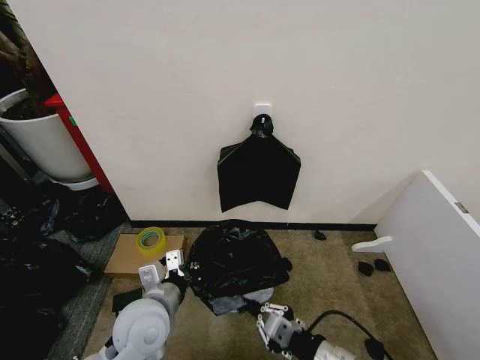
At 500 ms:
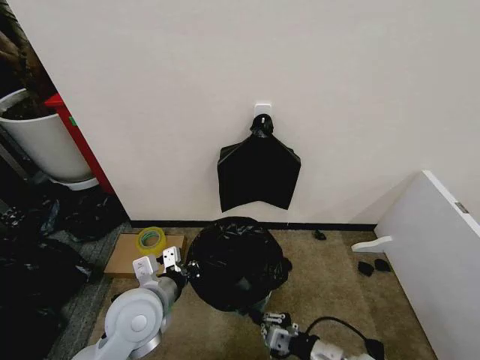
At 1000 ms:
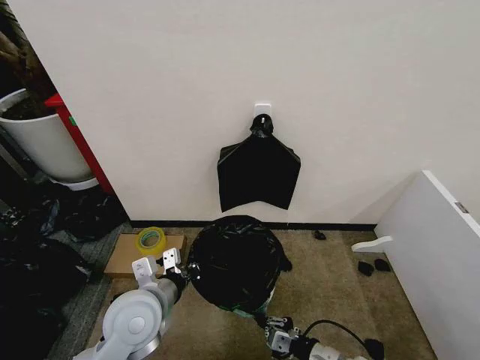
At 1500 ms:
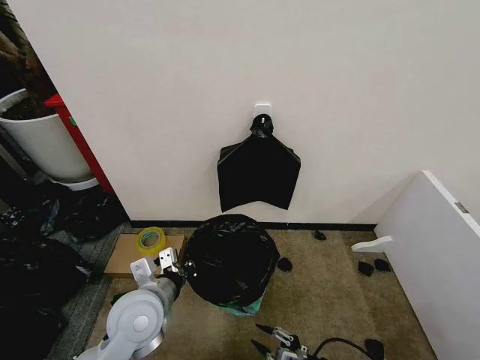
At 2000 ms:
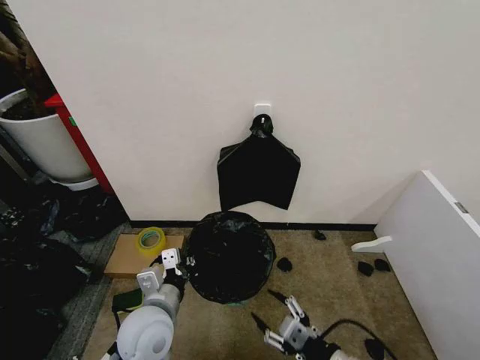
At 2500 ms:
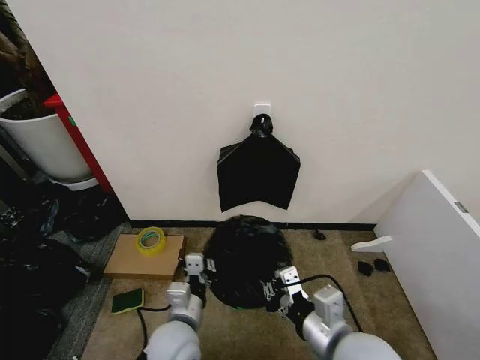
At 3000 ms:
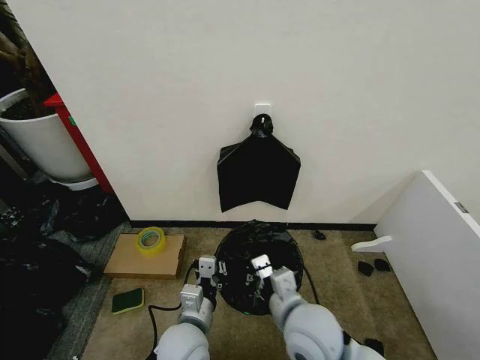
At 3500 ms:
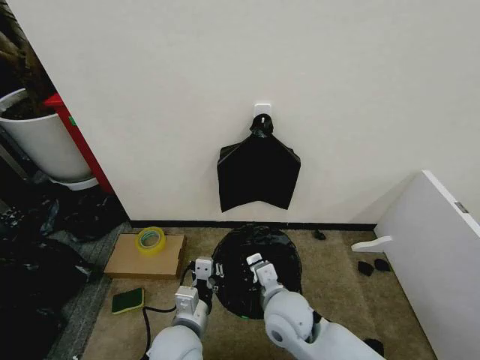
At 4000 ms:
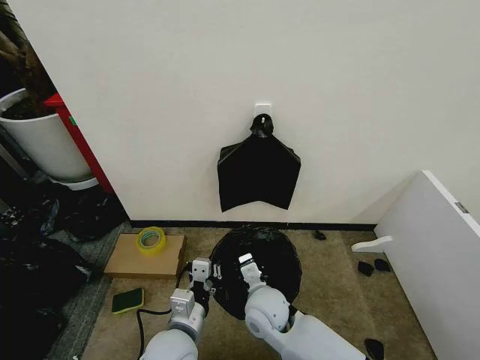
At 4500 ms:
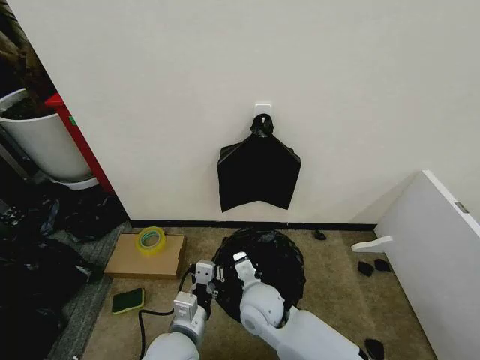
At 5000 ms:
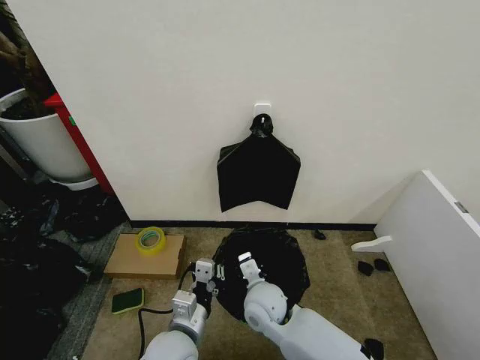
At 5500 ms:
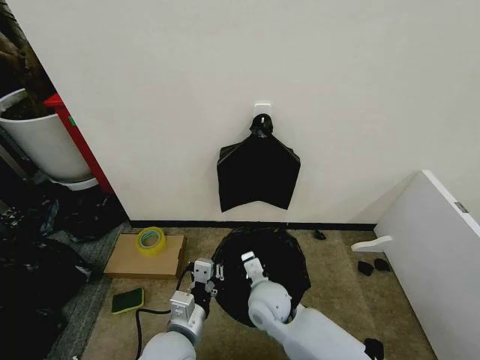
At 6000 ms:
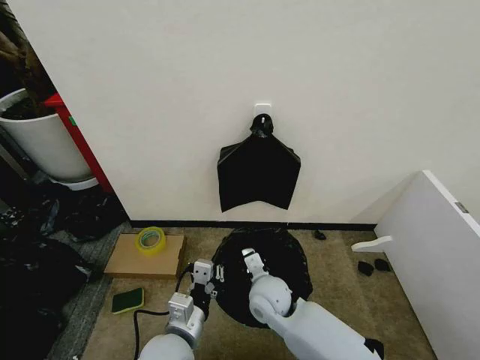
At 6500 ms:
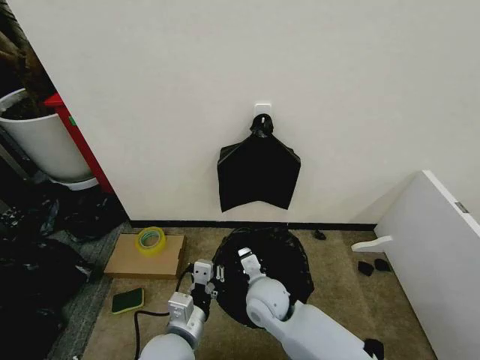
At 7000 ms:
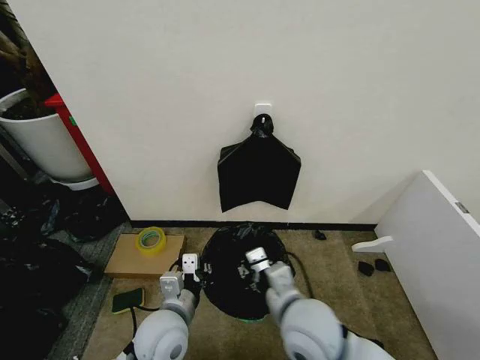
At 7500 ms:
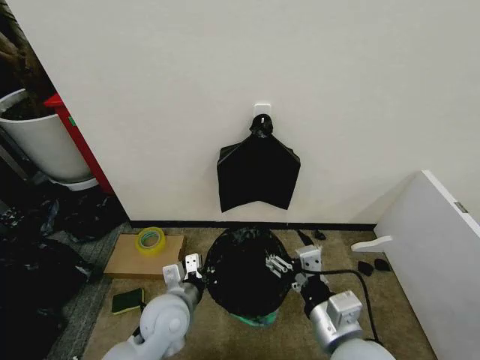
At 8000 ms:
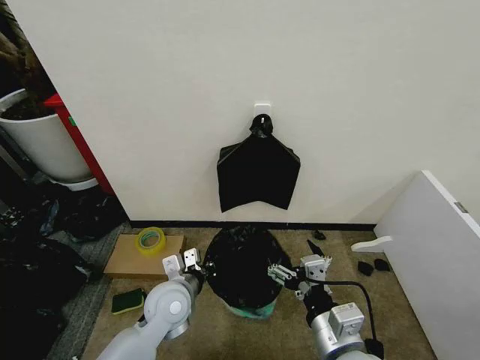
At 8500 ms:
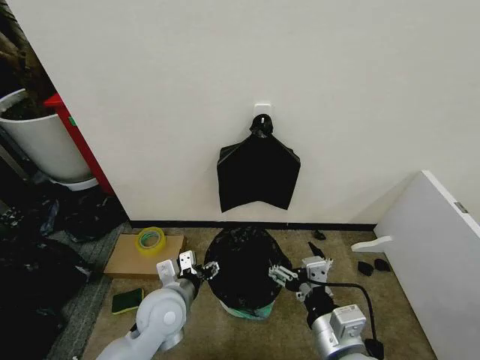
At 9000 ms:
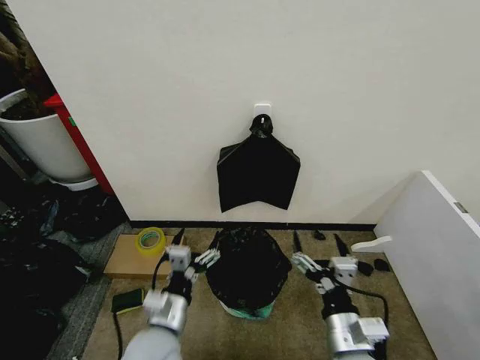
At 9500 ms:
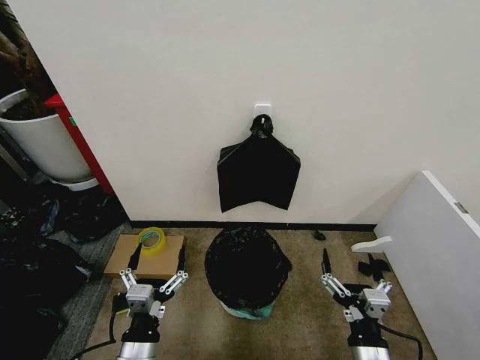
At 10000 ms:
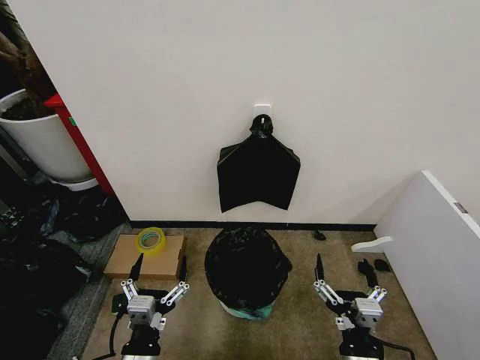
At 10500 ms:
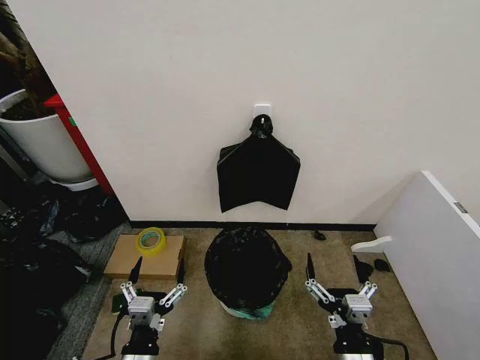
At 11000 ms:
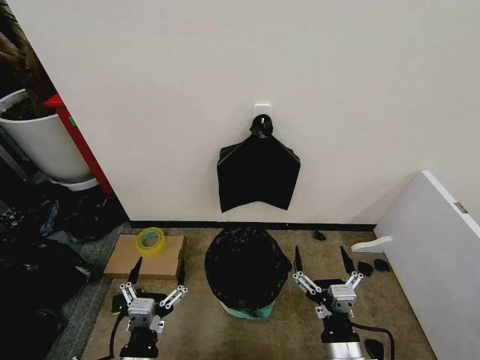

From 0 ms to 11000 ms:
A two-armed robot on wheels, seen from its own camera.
Task of the whole recording: Place the garbage bag over the trash bin.
From 0 ms to 2000 ms: The right gripper travels downward and back again, roughly 15 cm each way, and opens its fingers.
From 2000 ms to 3500 ms: The left gripper shifts some 5 cm to the right. The right gripper travels forward and to the left by some 20 cm, and closes.
From 3500 ms to 5500 ms: The right gripper changes place by roughly 5 cm.
From 5500 ms to 7500 ms: The right gripper is displaced backward, upward and to the right by approximately 20 cm, and opens up, while the left gripper moves forward, approximately 5 cm.
From 7500 ms to 9000 ms: The right gripper is displaced downward by some 5 cm. The left gripper travels backward by roughly 5 cm, and opens.
From 9000 ms to 11000 ms: The left gripper shifts about 10 cm backward.

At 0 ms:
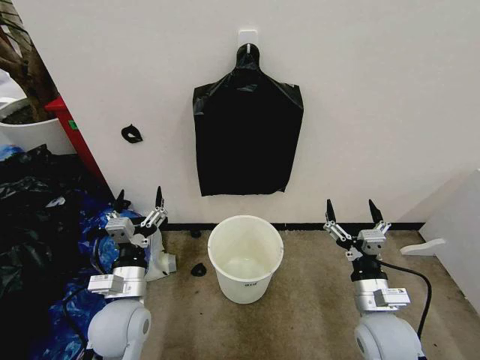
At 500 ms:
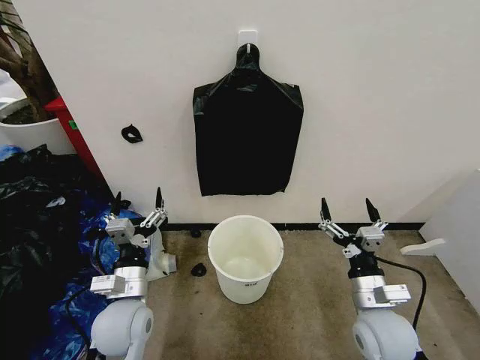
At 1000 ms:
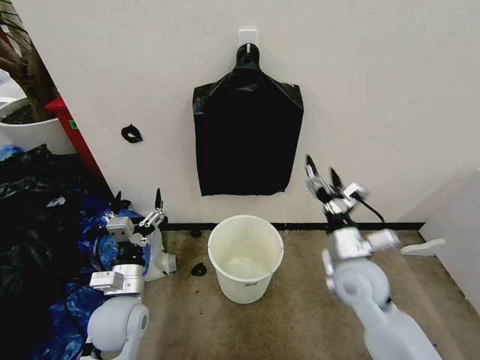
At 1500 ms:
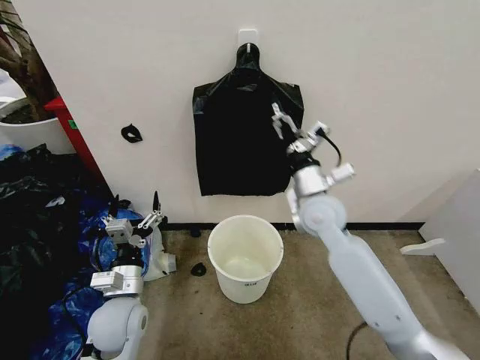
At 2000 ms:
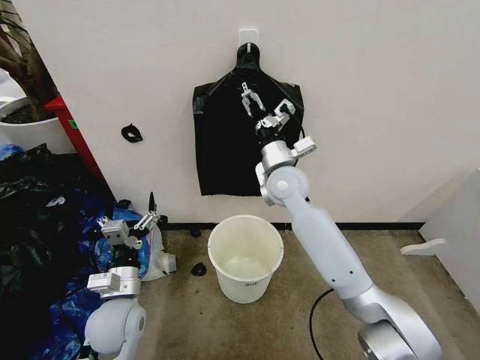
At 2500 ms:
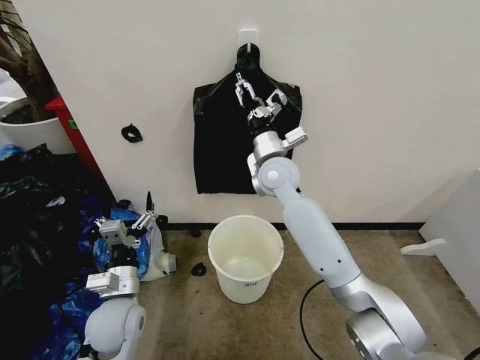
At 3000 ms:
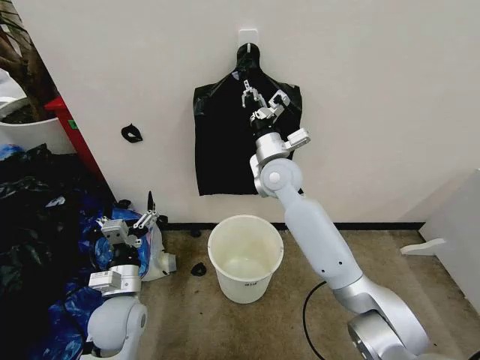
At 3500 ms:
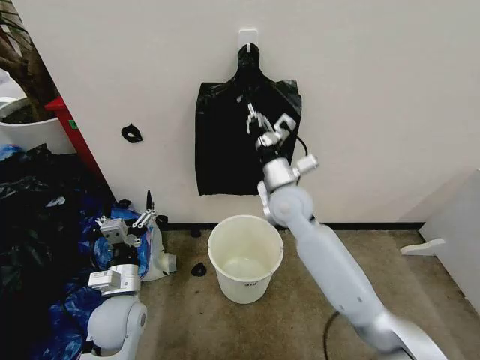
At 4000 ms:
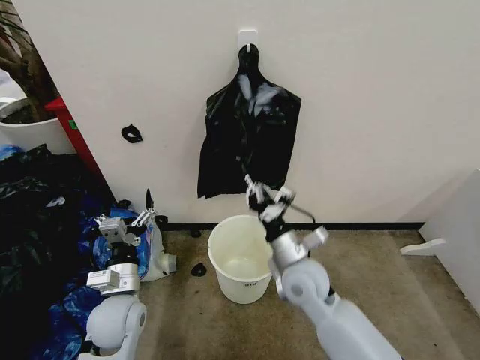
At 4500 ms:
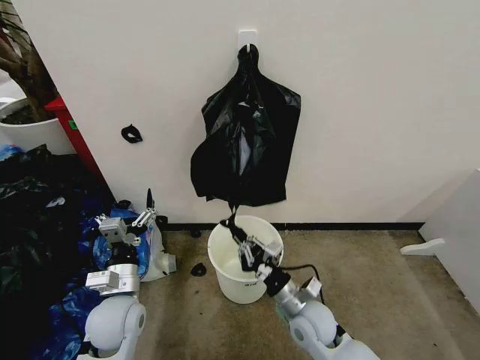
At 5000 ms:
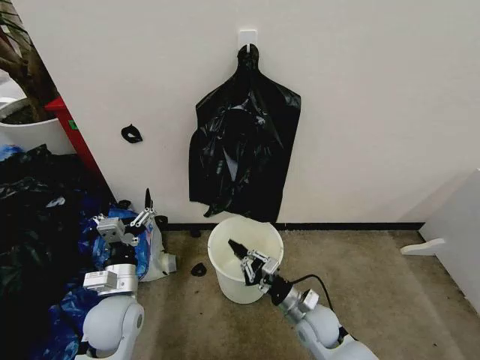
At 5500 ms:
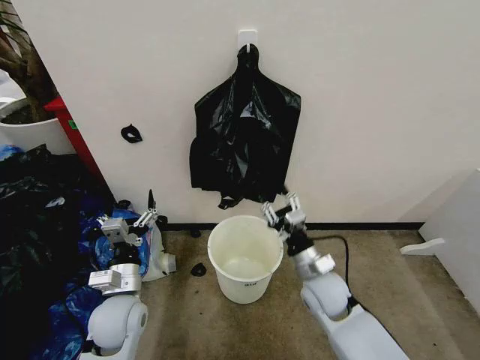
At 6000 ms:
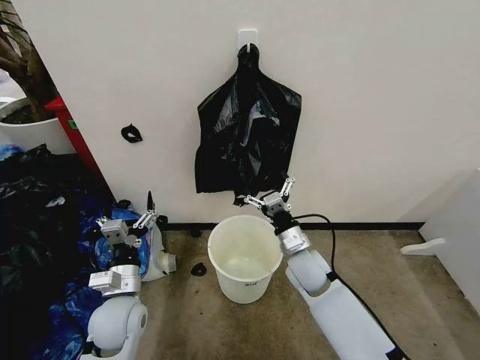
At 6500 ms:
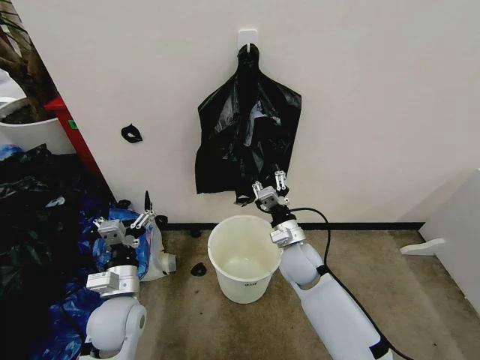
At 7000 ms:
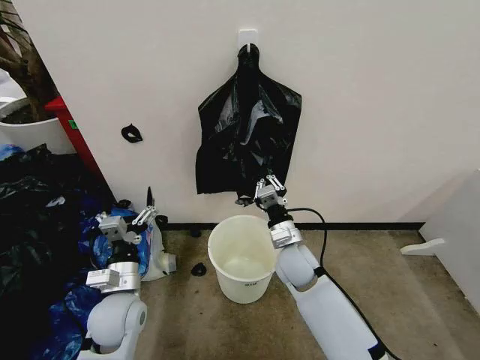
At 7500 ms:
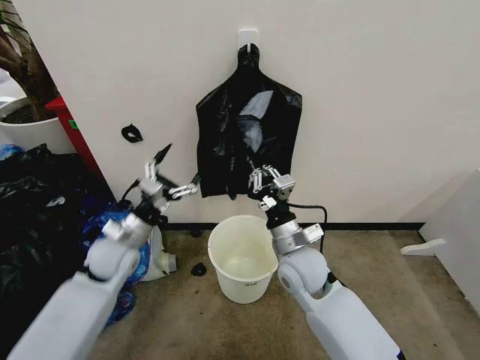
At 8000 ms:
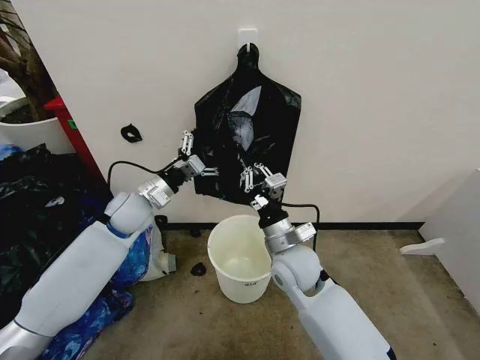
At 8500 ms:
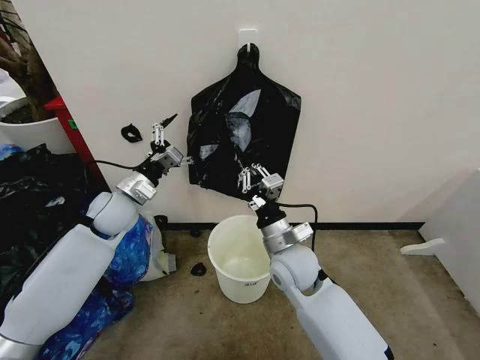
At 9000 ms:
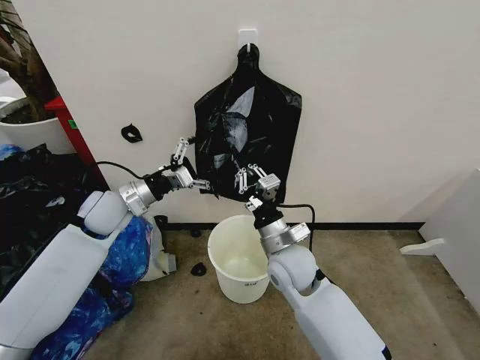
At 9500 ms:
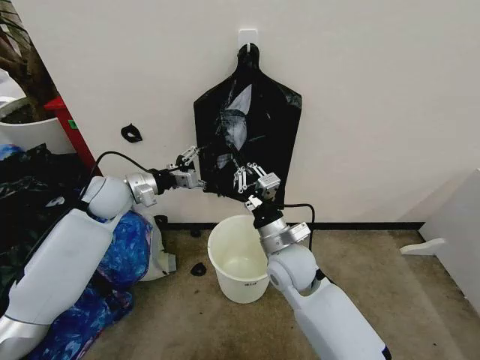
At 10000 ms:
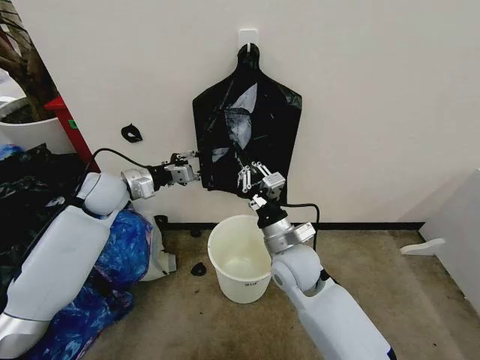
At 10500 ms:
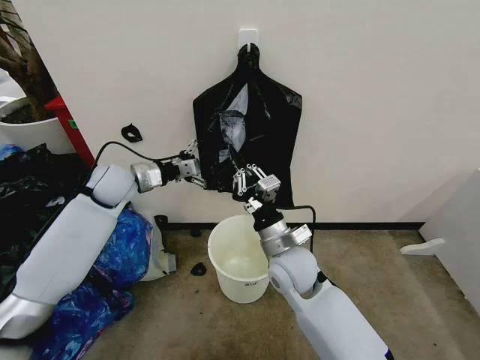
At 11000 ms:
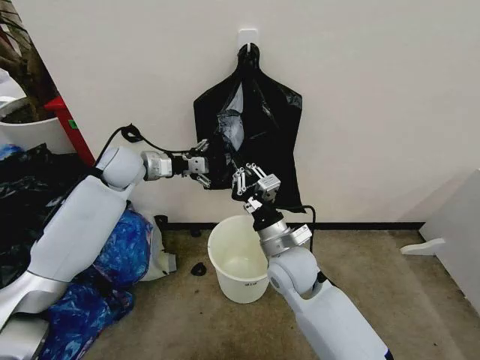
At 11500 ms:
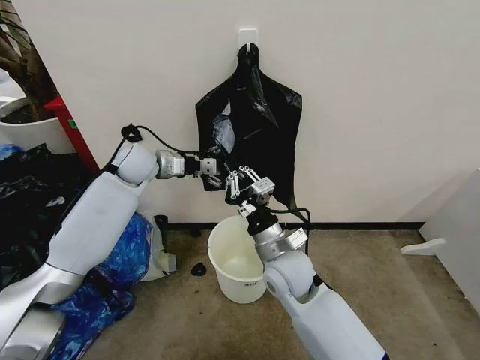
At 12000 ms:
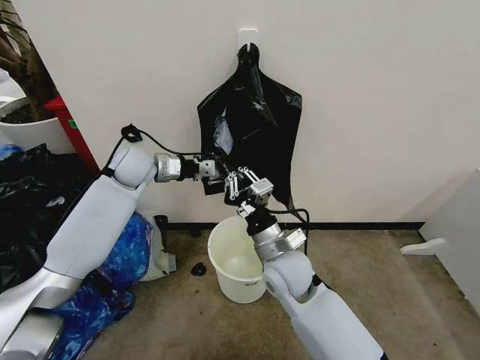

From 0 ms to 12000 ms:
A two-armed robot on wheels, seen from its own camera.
Task of the whole recording: Place the garbage bag over the trash bin.
From 2000 ms to 4000 ms: The right gripper is displaced backward and downward by roughly 20 cm, and closes.
From 4000 ms to 6000 ms: The right gripper heads downward, covering roughly 5 cm, and opens.
From 6000 ms to 8000 ms: The right gripper goes some 5 cm upward, and closes up. Meanwhile the left gripper shifts approximately 20 cm forward and upward.
From 8000 ms to 10000 ms: The left gripper travels to the left by approximately 5 cm, and closes.
From 10000 ms to 12000 ms: The left gripper goes about 10 cm forward and to the right, and opens, then closes again.

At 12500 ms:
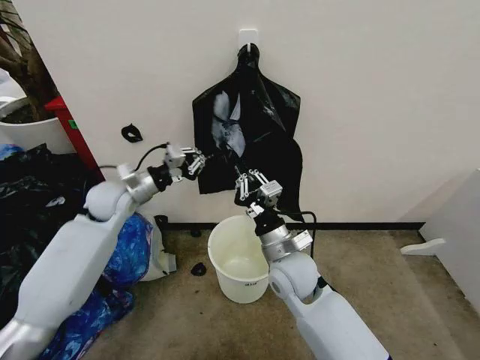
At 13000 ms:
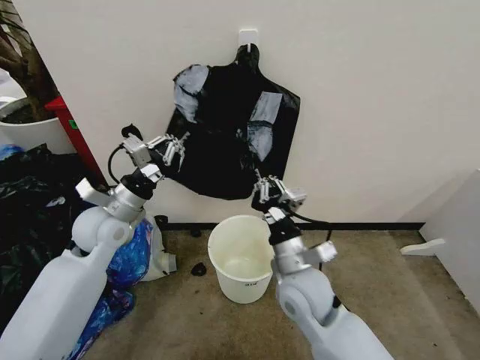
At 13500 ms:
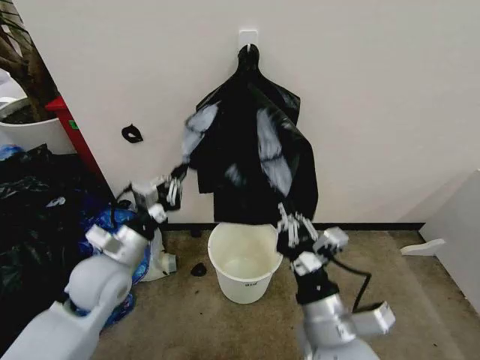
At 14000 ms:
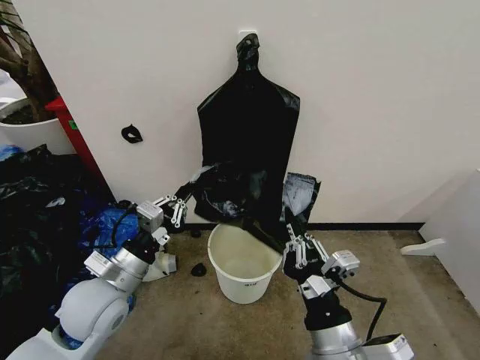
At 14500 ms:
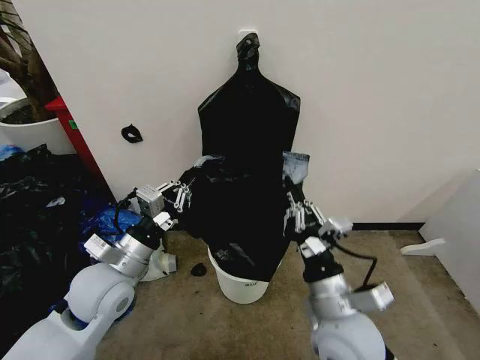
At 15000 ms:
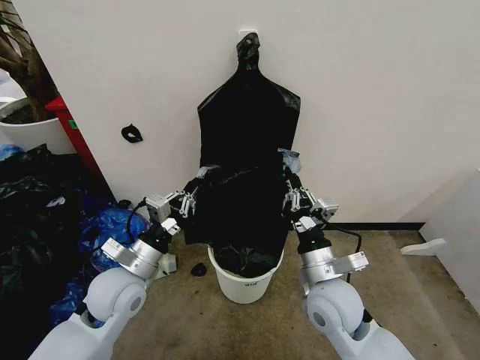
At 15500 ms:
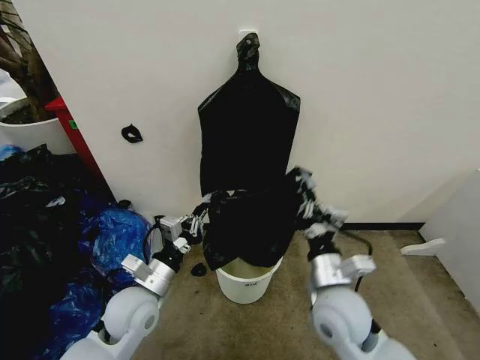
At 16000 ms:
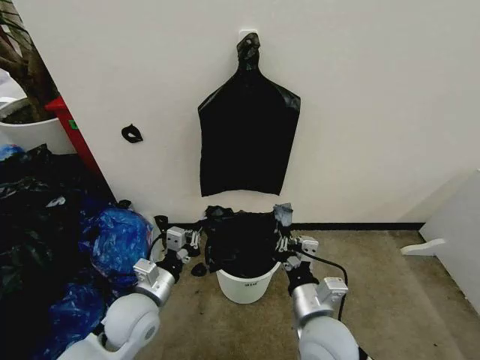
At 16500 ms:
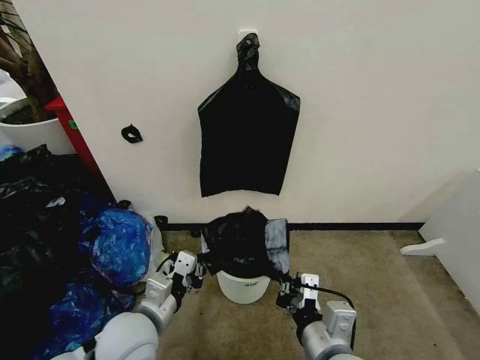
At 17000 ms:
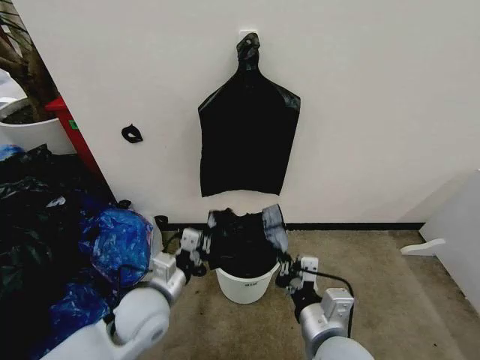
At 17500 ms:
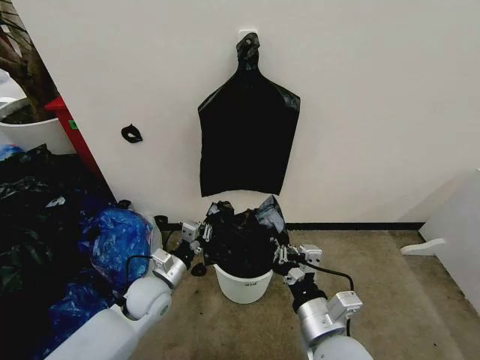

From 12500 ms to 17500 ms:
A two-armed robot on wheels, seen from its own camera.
Task of the whole recording: Place the garbage bag over the trash bin.
From 12500 ms to 15000 ms: The right gripper heads to the right, covering approximately 5 cm, and travels backward and back again, roughly 20 cm each way; the left gripper shifts approximately 20 cm backward.
From 15000 ms to 17500 ms: The left gripper travels downward by approximately 10 cm, while the right gripper travels backward by approximately 10 cm.
